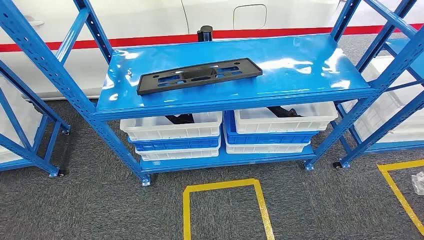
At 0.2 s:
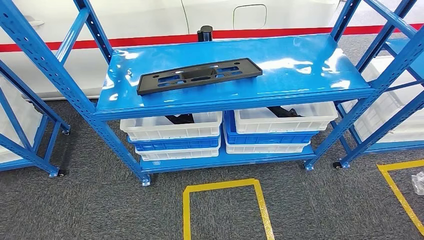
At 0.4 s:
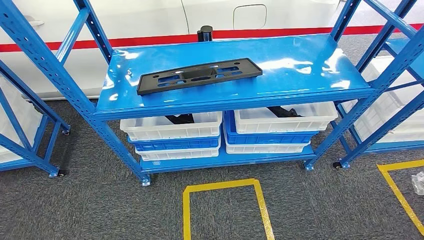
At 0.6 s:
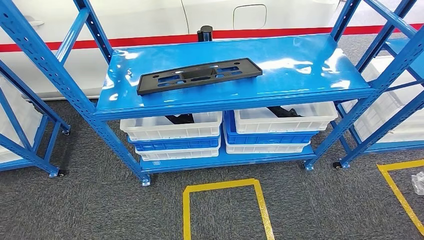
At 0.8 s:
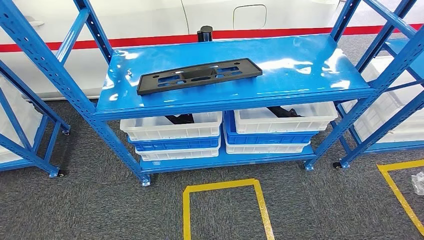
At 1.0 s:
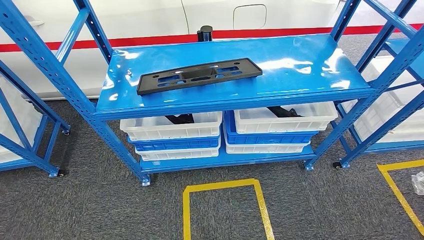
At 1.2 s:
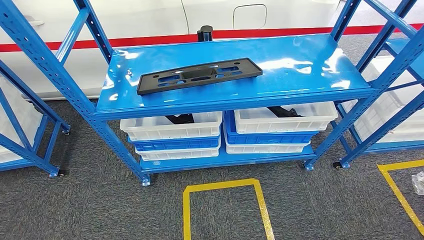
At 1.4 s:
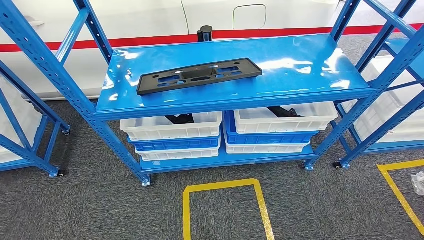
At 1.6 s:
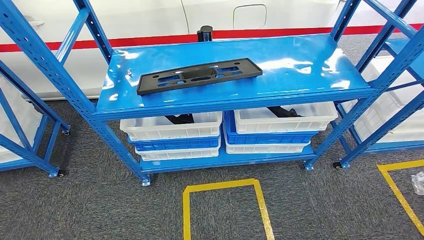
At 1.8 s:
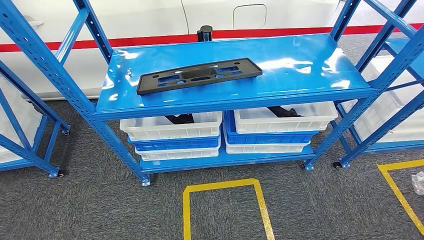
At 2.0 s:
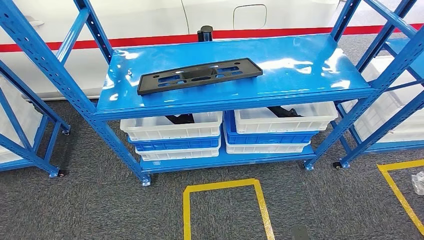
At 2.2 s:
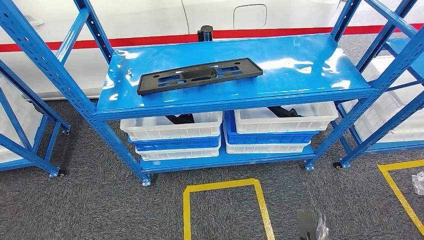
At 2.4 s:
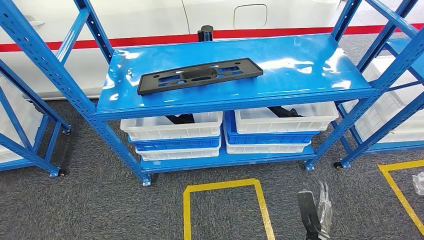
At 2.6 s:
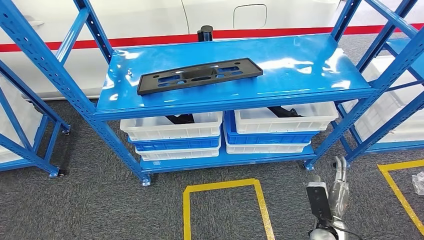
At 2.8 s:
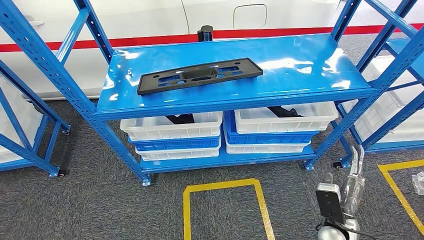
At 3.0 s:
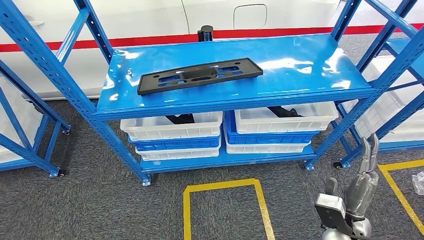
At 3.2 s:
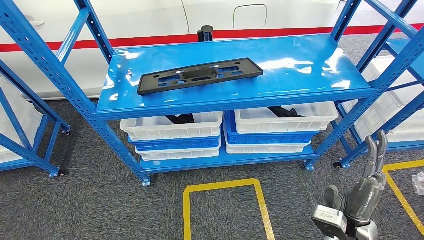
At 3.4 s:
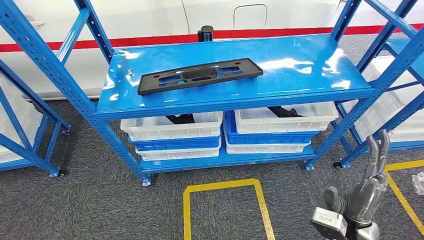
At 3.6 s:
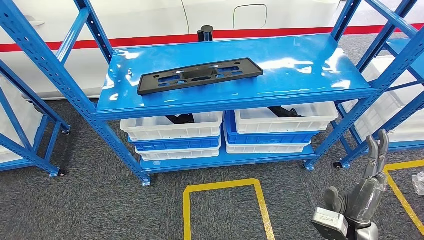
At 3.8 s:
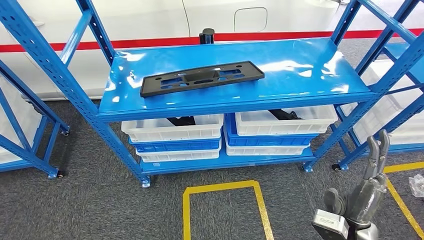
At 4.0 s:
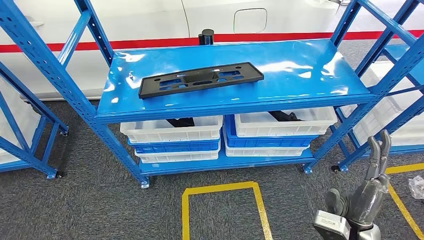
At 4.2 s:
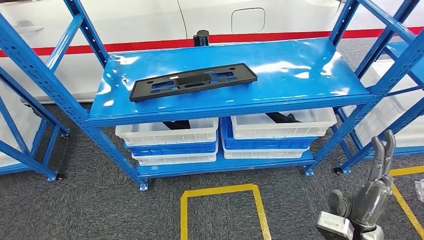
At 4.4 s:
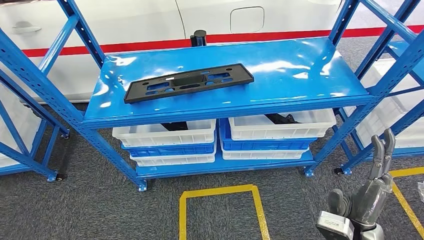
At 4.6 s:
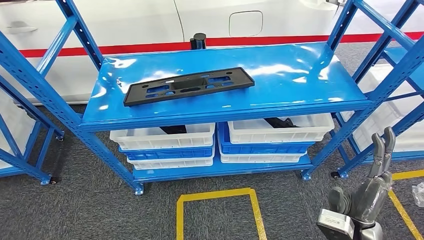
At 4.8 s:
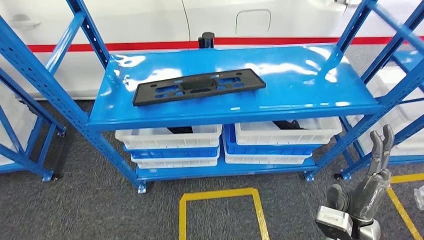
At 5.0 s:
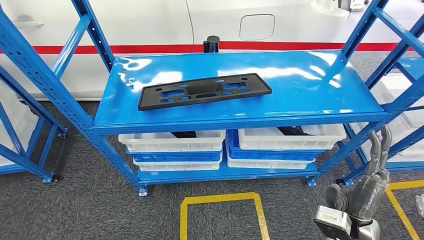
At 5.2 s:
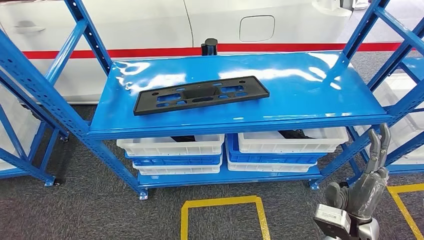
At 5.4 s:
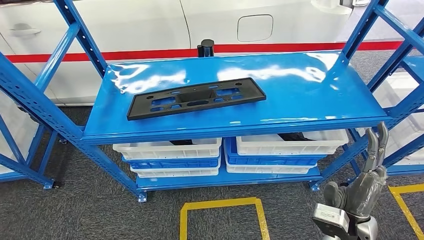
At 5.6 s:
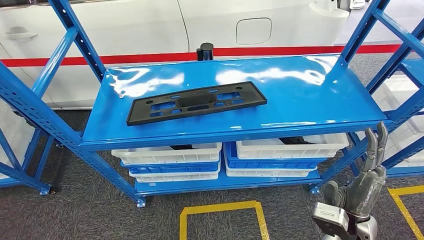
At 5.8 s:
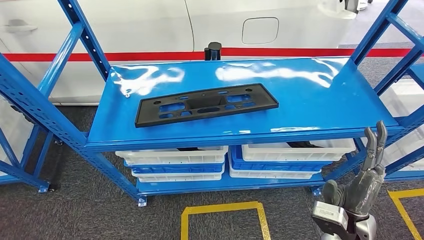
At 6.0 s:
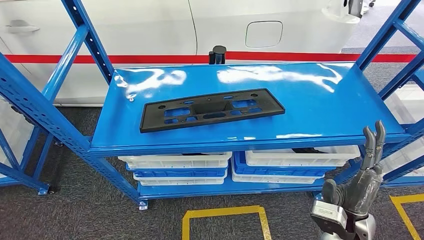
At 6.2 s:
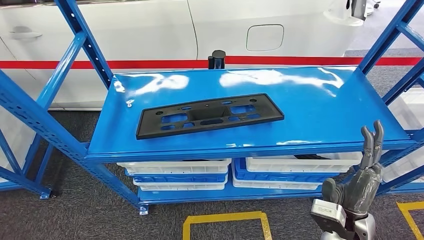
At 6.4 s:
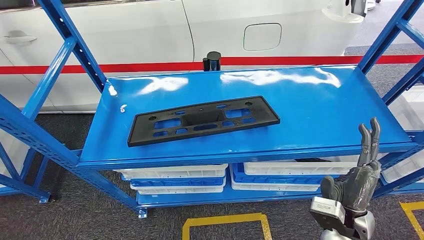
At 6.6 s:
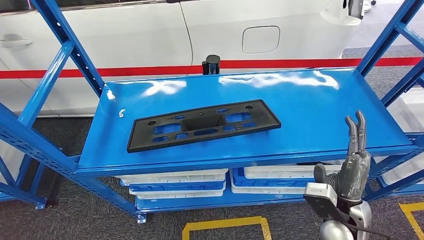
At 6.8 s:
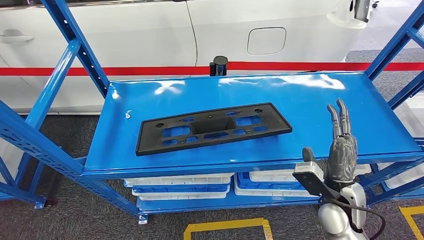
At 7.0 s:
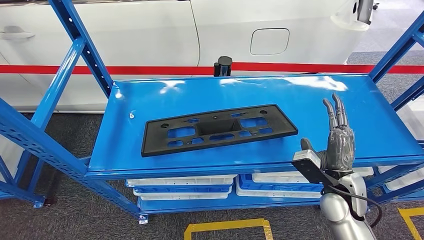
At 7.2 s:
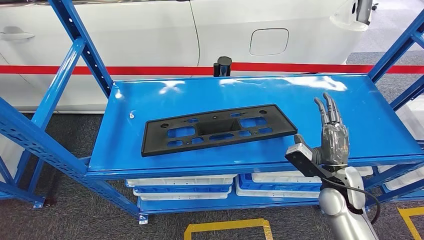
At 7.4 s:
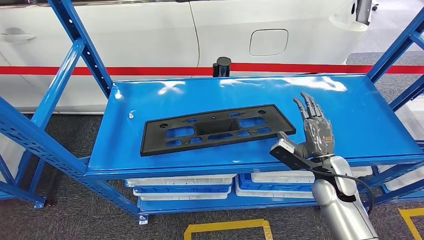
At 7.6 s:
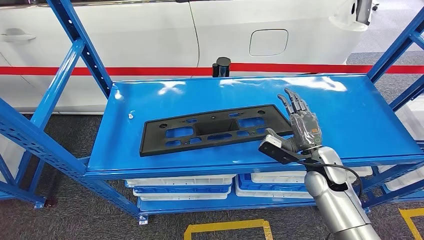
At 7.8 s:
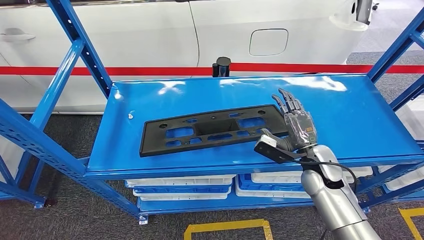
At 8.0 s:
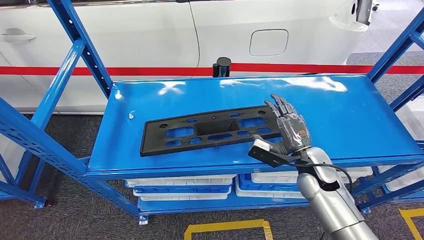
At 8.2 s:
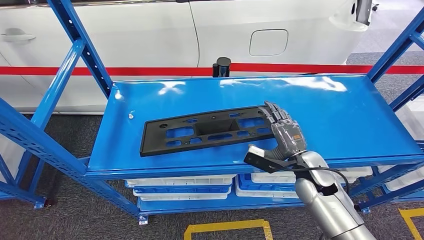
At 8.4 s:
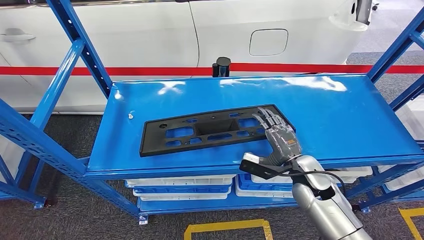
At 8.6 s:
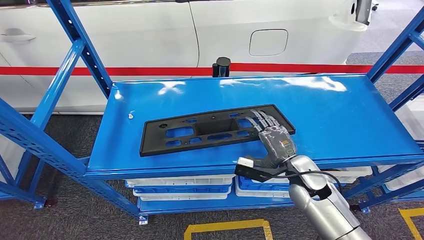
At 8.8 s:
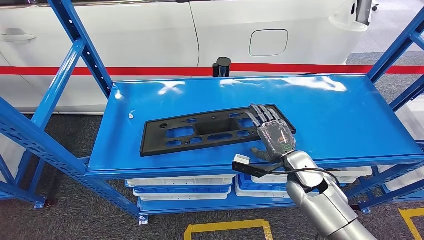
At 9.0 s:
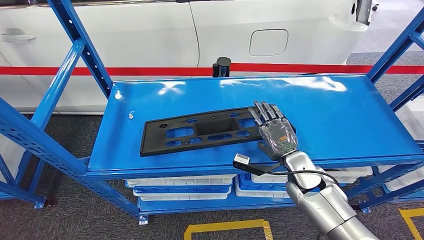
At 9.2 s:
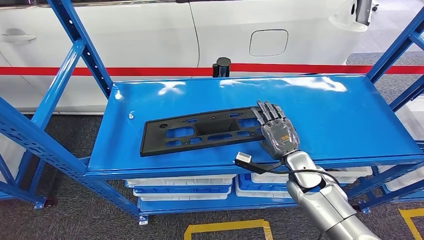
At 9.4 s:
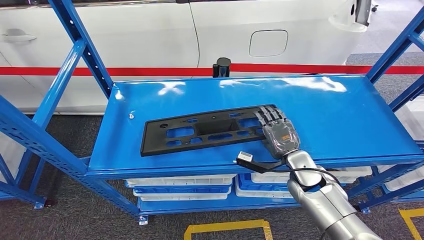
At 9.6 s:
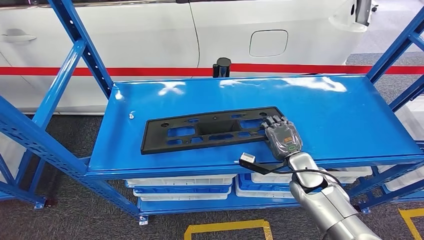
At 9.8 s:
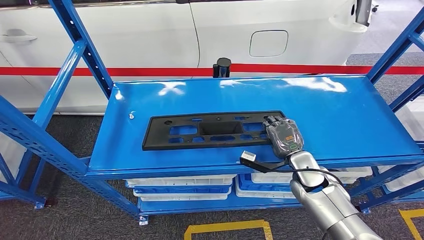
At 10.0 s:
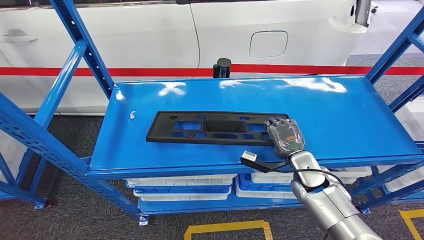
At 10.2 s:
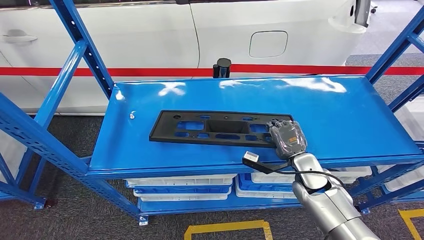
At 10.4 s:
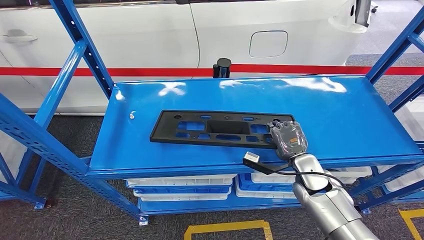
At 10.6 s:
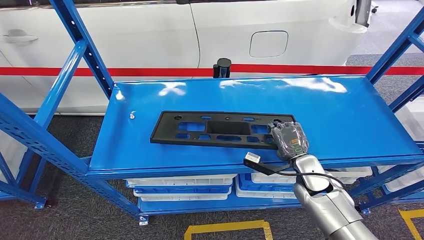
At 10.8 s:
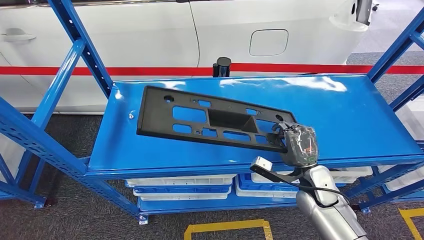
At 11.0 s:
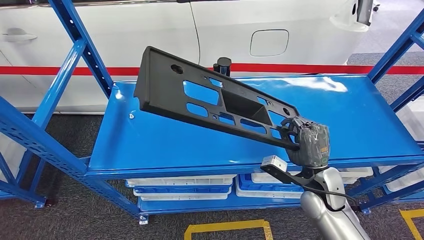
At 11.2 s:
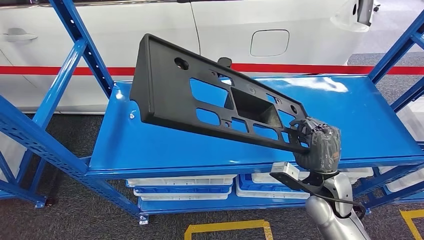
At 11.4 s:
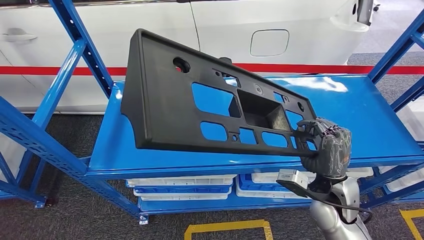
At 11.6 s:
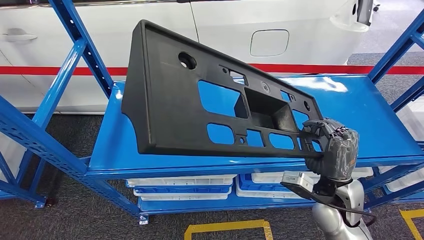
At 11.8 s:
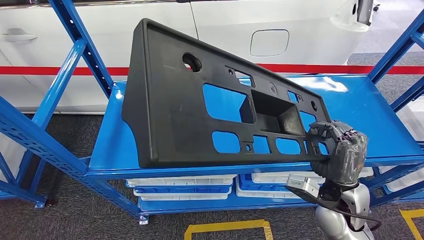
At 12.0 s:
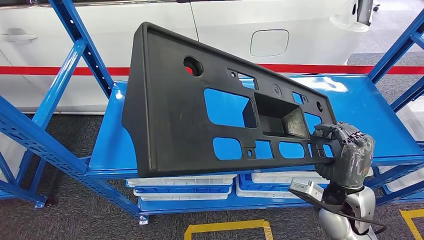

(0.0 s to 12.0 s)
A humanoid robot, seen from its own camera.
Step, 0.0 s - 11.6 s: Pick up the large material from the shelf.
1.6 s - 3.0 s: The right hand goes approximately 30 cm upward and forward.
7.6 s - 9.0 s: The right hand shifts by about 5 cm.
9.0 s - 10.4 s: The hands stay close to where they were, moving slightly.

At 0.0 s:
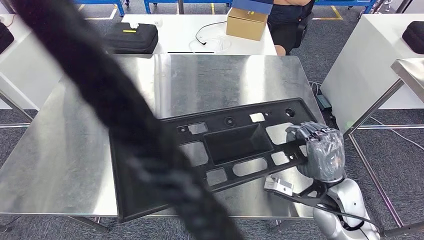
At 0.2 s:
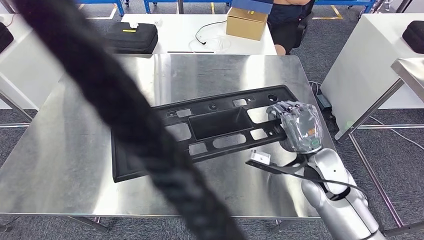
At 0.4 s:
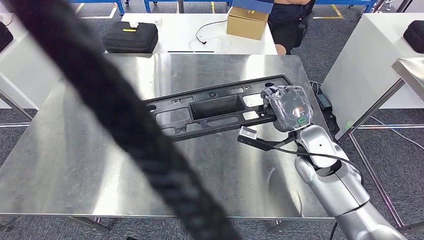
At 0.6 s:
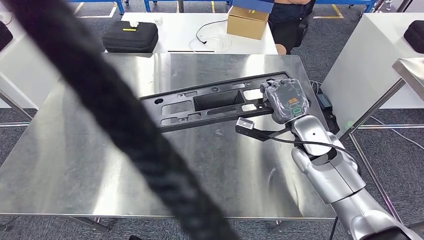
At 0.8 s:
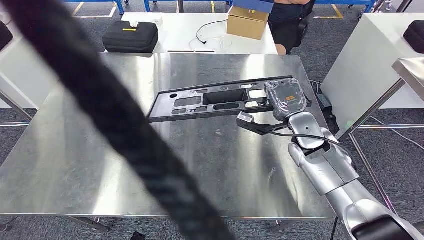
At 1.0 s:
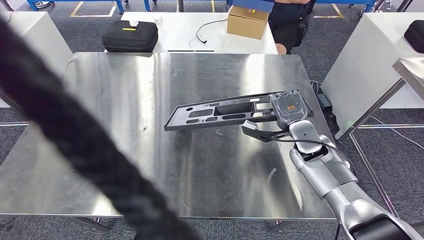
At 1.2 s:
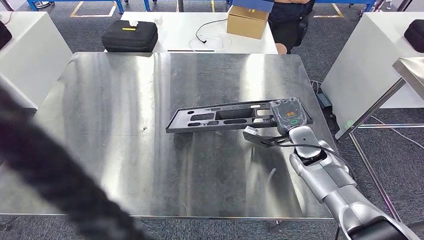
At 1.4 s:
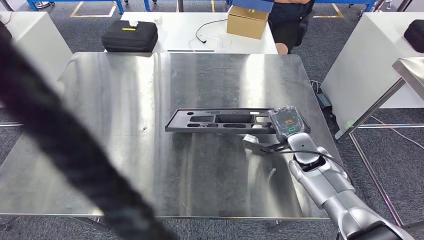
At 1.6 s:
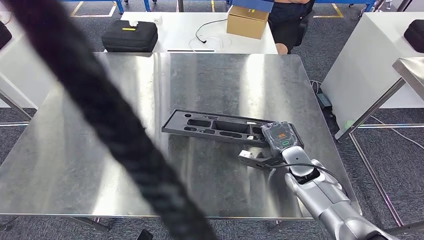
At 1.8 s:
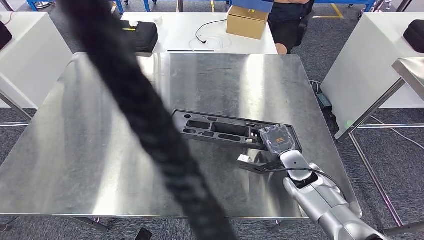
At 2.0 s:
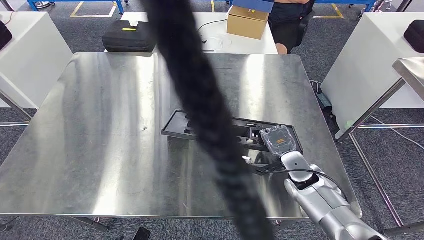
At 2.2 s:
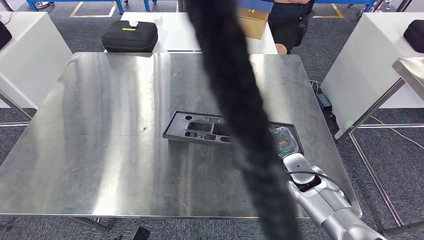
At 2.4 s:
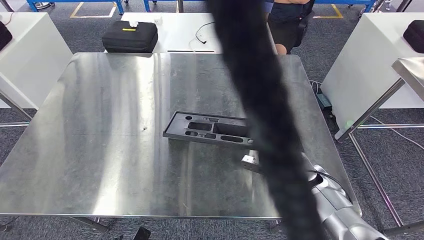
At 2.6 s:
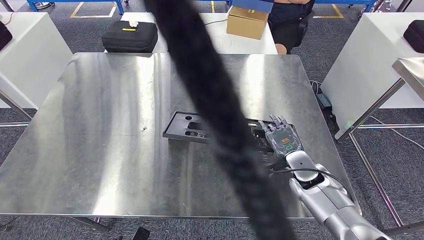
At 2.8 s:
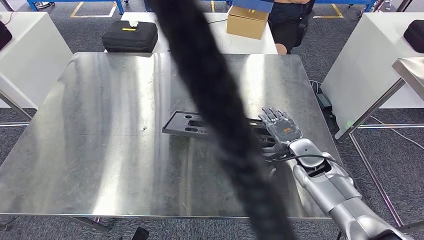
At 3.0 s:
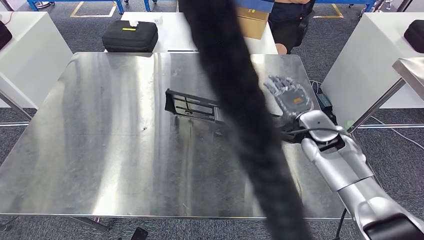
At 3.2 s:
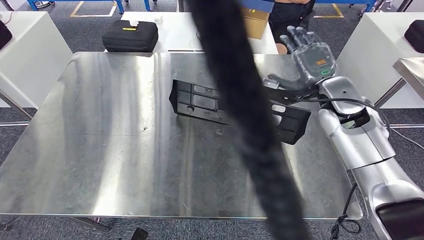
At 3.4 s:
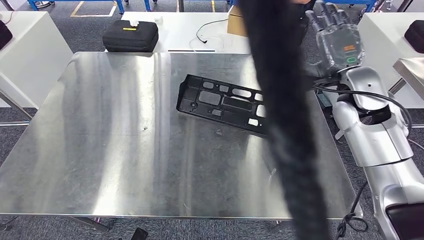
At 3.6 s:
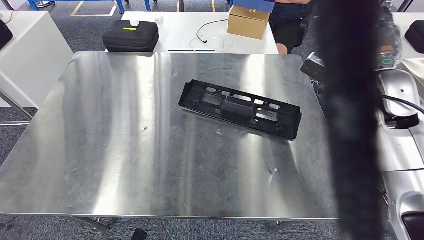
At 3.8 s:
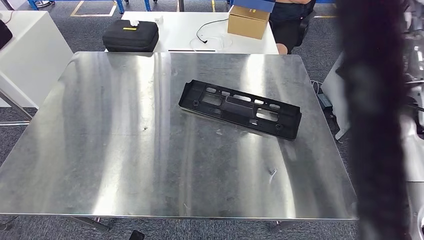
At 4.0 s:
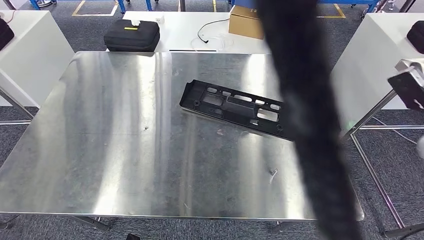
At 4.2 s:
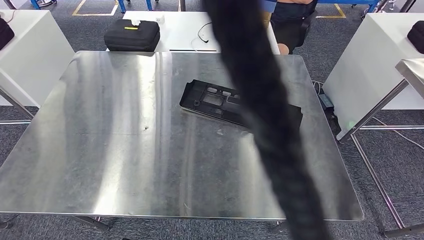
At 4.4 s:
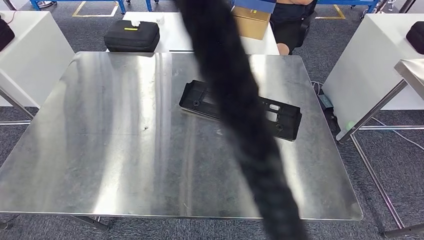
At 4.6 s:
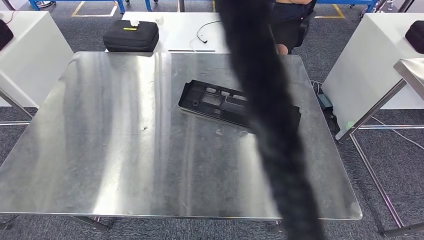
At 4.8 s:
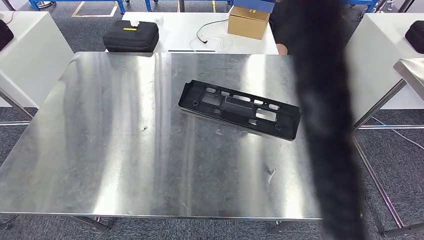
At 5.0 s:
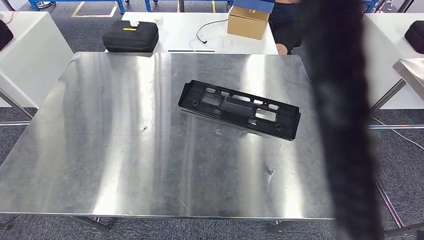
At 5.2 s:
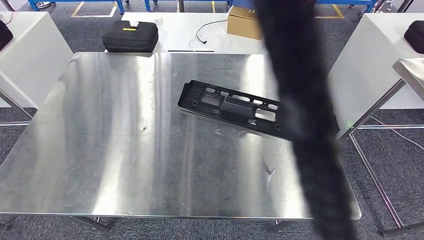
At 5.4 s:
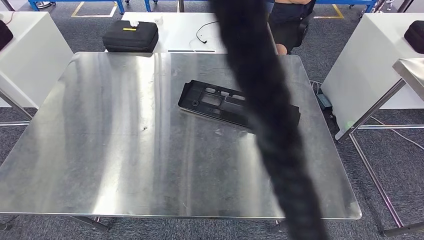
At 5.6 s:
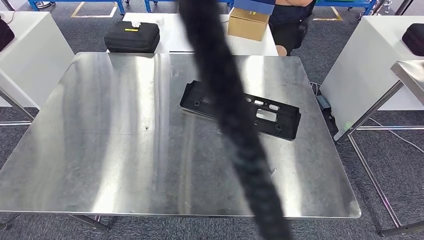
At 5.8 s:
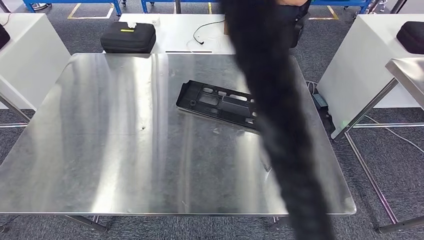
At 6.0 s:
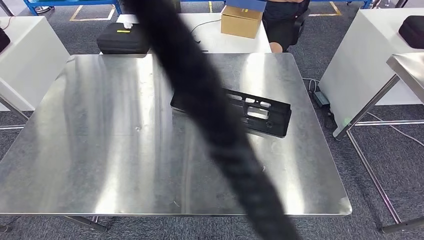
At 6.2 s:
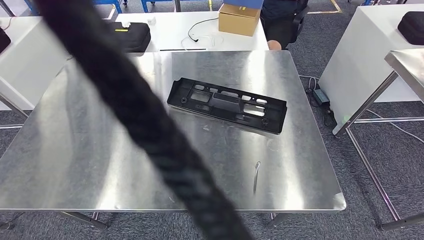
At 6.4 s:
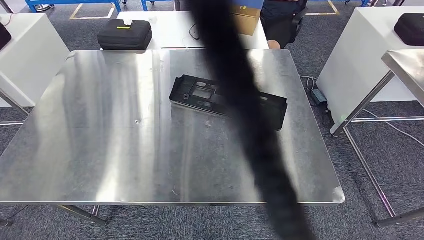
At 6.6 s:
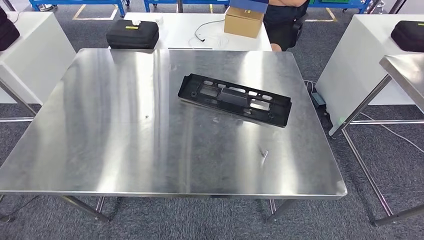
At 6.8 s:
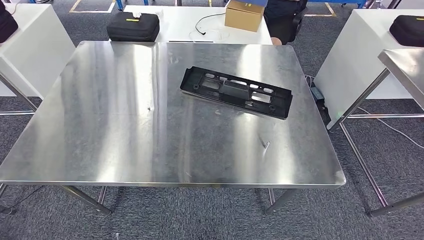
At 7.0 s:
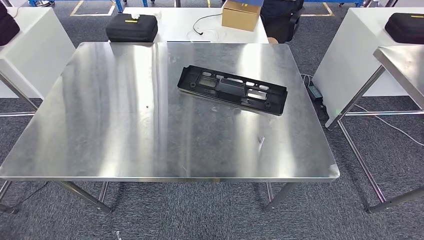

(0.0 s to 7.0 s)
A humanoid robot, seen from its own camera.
Step, 0.0 s - 4.2 s: Insert the large material into the corresponding slot on the workbench.
